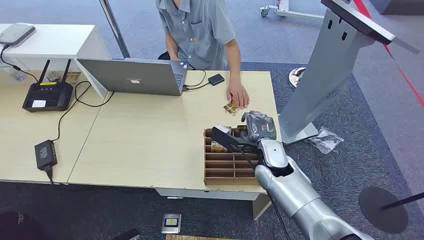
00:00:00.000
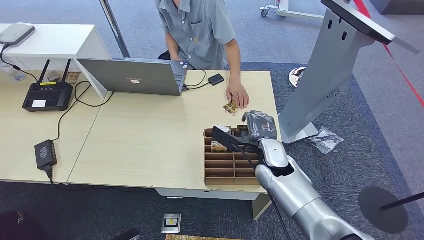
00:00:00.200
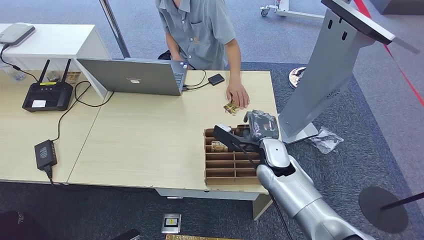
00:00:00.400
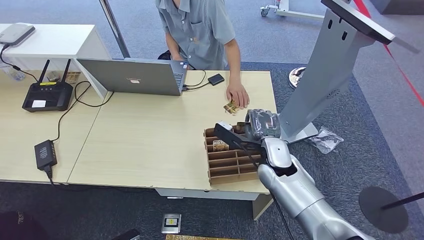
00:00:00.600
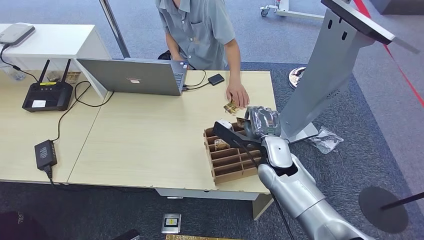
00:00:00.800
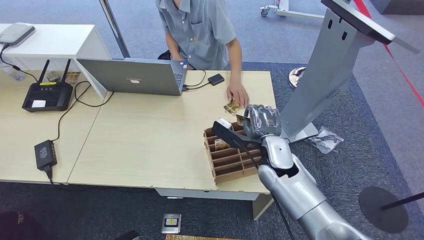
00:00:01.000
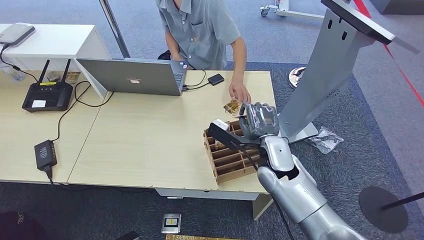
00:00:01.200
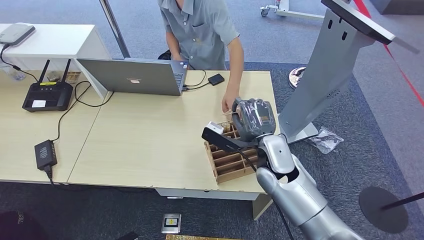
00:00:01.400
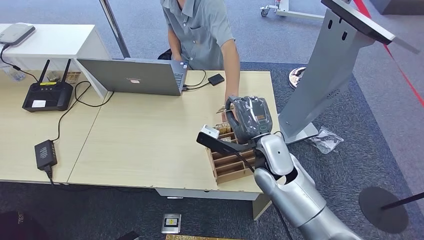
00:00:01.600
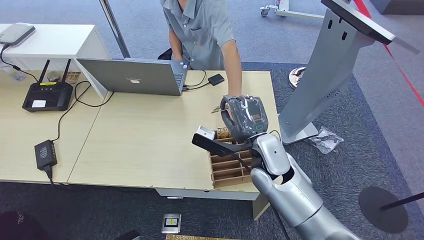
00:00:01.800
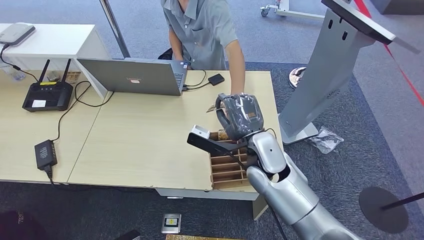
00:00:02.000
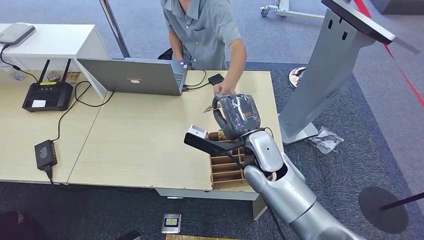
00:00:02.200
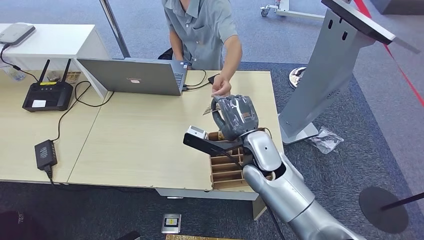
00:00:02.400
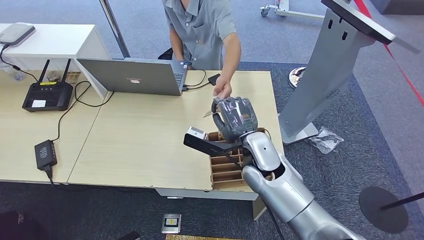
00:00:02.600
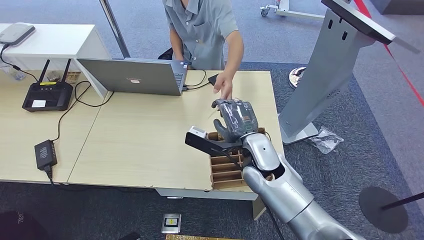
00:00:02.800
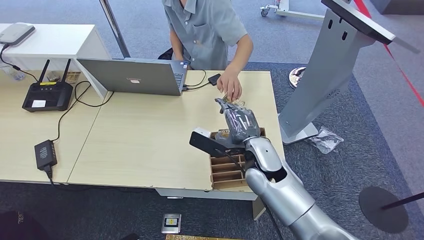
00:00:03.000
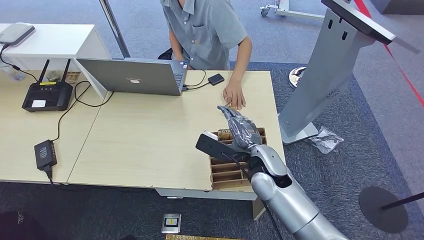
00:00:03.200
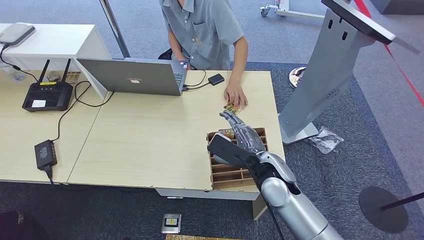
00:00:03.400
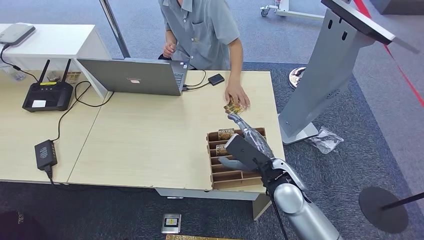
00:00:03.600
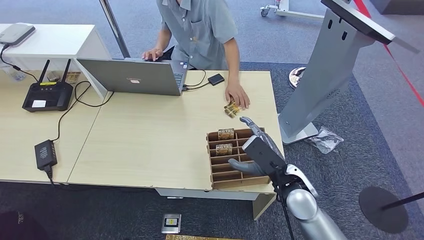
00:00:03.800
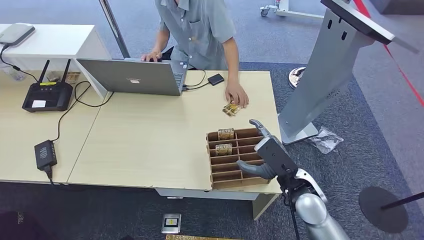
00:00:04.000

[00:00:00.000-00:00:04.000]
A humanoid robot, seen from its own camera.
Step, 00:00:00.000 to 00:00:02.000: Pick up the key card from the card box.
Step, 00:00:02.200 to 00:00:03.800: Hand the key card to the target.
00:00:01.400 to 00:00:02.600: The hands move only a little.
00:00:02.600 to 00:00:04.000: The right hand heads to the right, downward and backward, covering about 15 cm.
